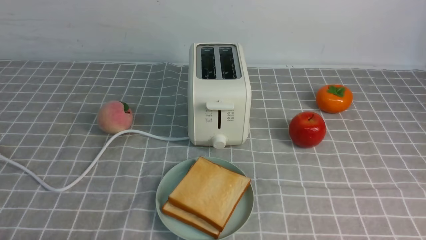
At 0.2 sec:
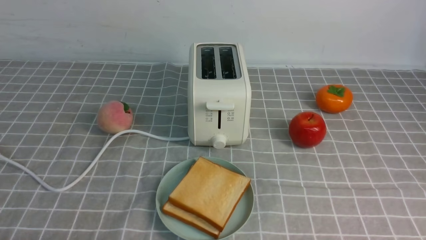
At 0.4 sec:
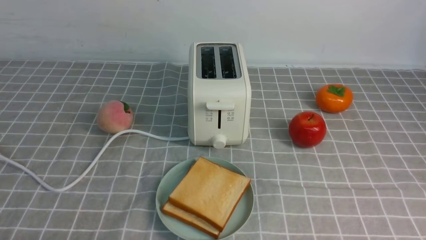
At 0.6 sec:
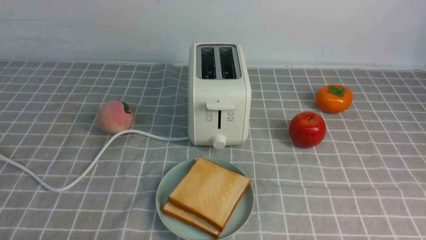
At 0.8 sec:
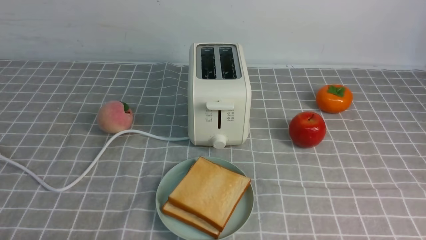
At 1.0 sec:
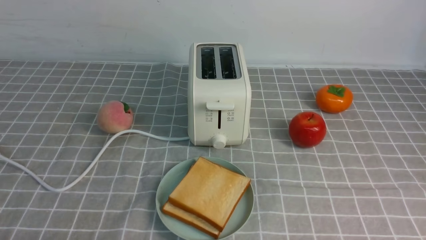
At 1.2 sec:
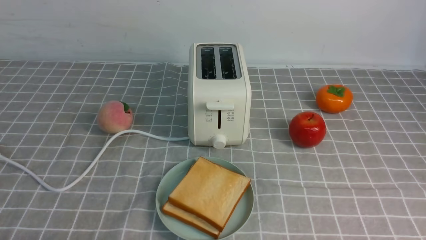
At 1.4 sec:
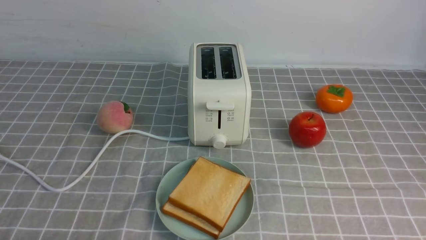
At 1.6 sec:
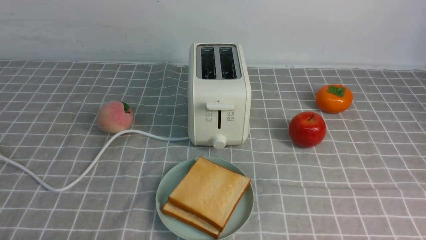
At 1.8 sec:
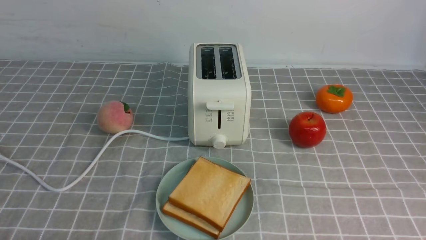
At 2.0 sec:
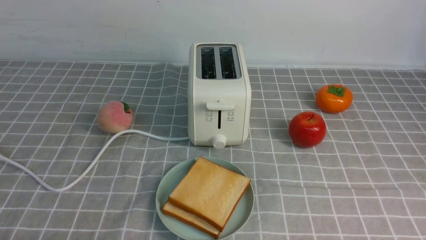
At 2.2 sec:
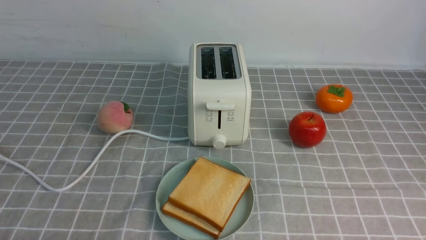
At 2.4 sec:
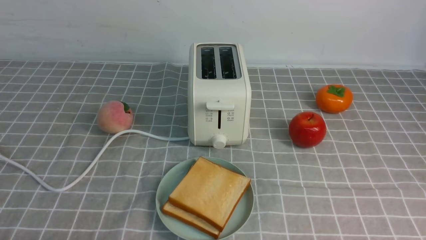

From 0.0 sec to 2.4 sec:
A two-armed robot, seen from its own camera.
Task of the whole recording: take toasted bread from bread machine on grey coffee table place on plate.
From 1.2 sec to 2.4 sec: Neither gripper changes place.
